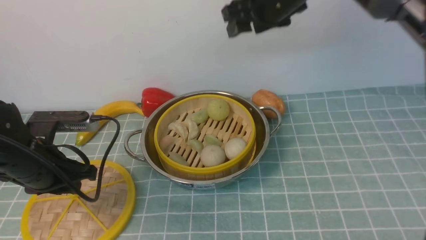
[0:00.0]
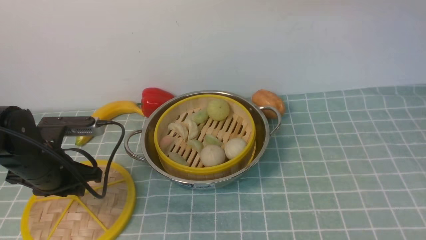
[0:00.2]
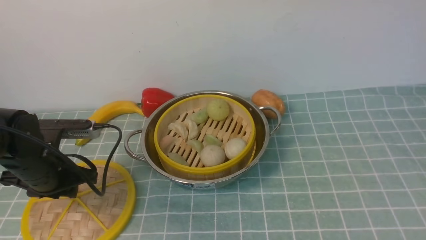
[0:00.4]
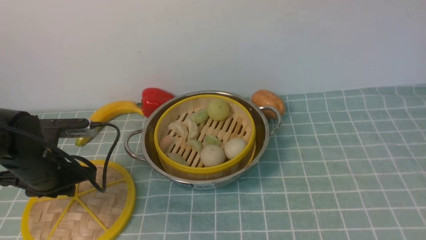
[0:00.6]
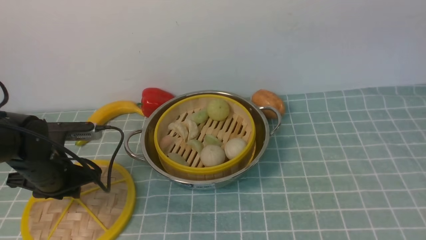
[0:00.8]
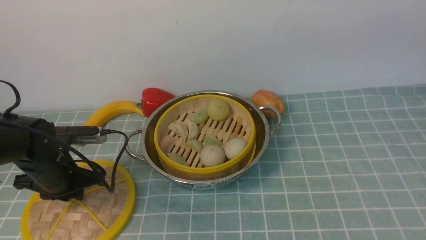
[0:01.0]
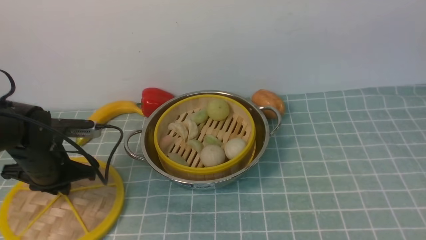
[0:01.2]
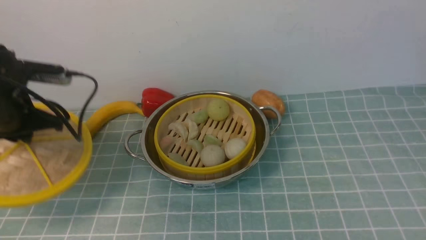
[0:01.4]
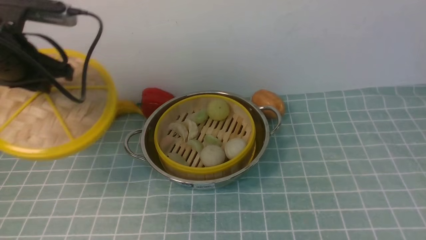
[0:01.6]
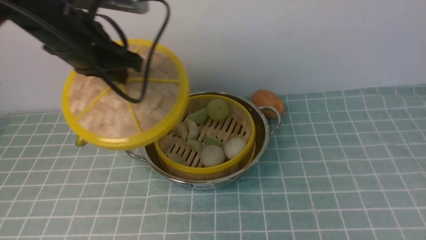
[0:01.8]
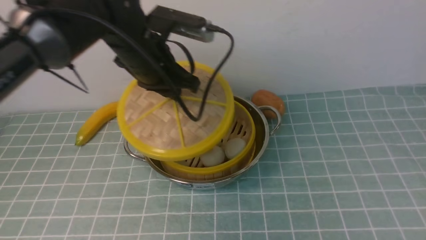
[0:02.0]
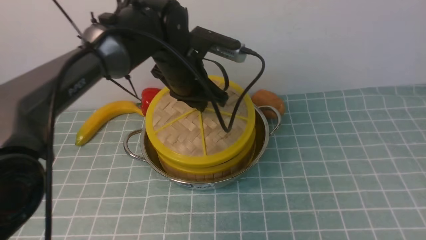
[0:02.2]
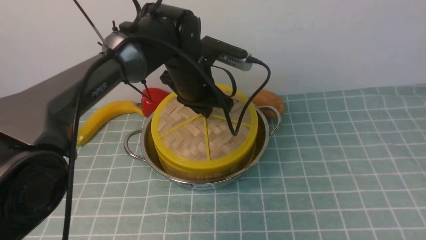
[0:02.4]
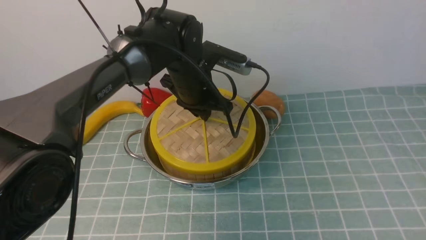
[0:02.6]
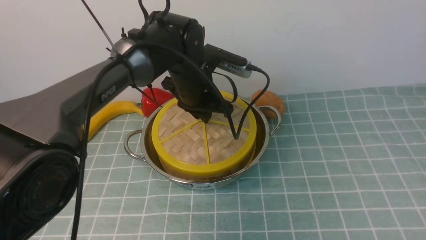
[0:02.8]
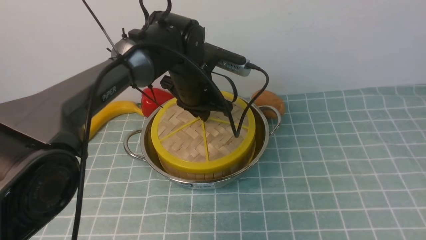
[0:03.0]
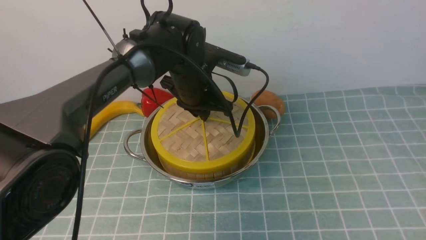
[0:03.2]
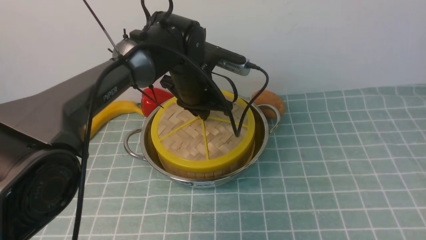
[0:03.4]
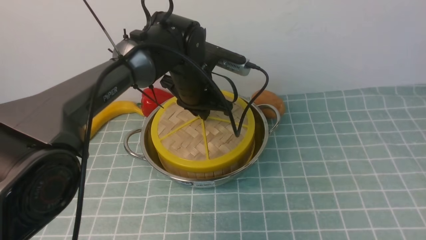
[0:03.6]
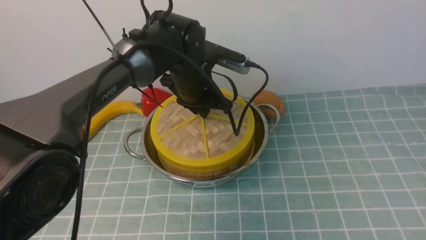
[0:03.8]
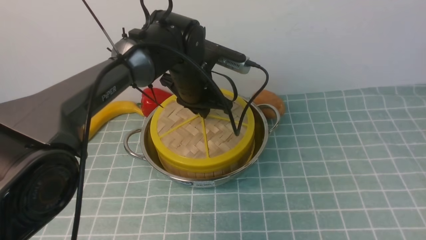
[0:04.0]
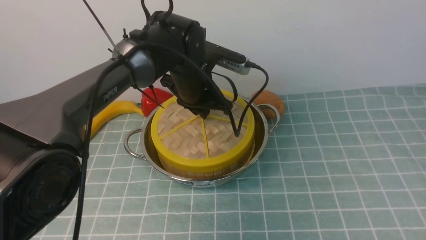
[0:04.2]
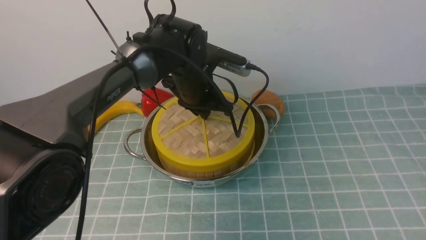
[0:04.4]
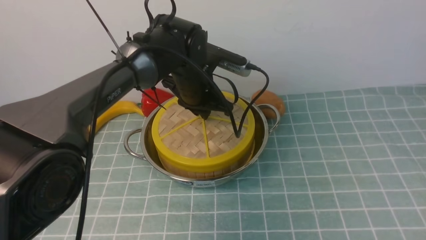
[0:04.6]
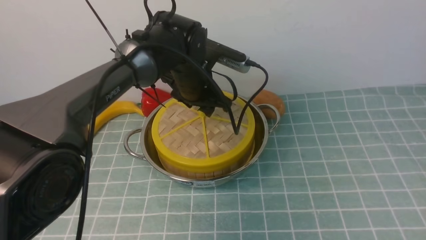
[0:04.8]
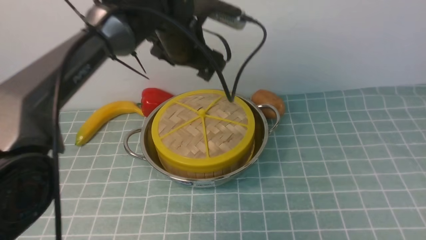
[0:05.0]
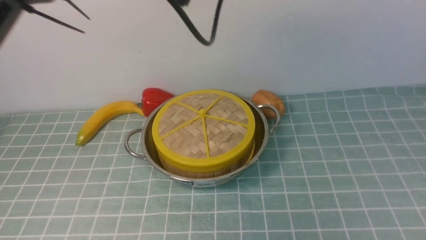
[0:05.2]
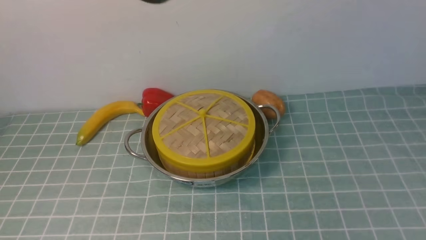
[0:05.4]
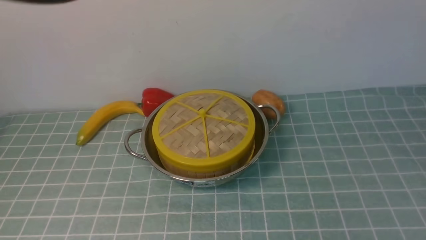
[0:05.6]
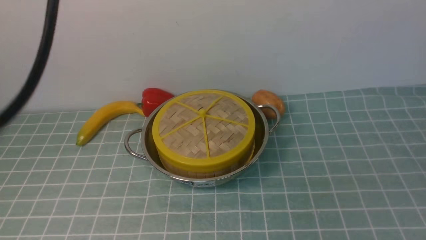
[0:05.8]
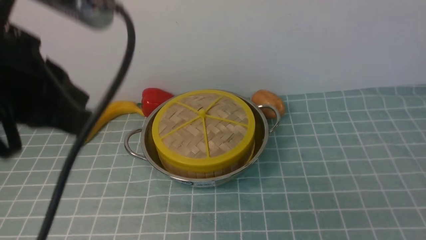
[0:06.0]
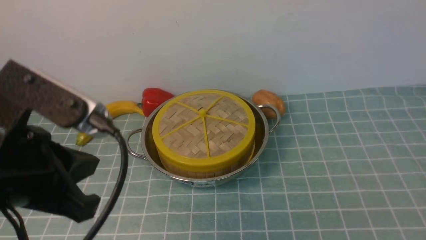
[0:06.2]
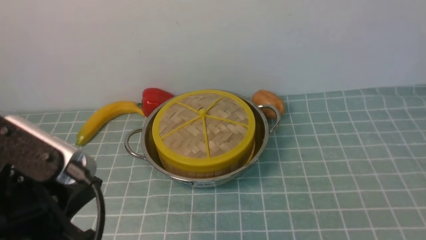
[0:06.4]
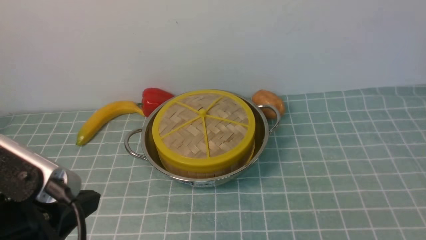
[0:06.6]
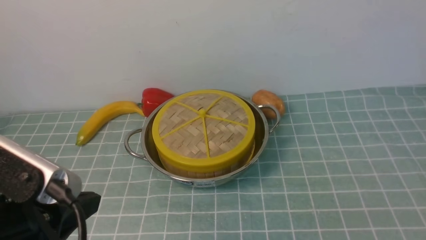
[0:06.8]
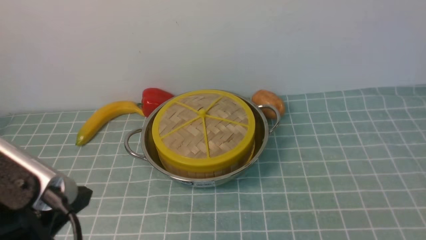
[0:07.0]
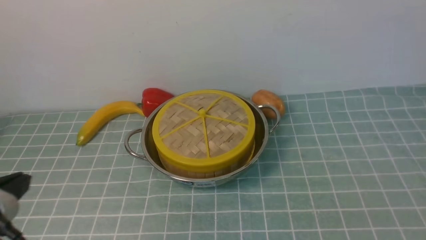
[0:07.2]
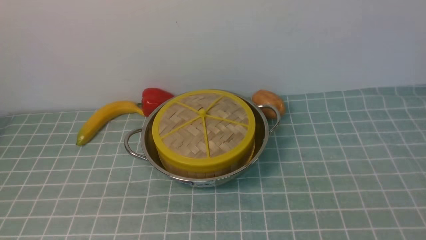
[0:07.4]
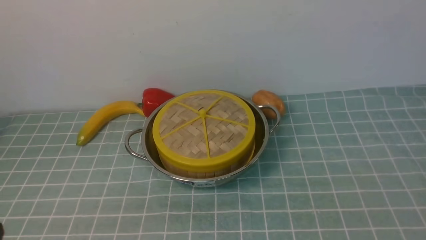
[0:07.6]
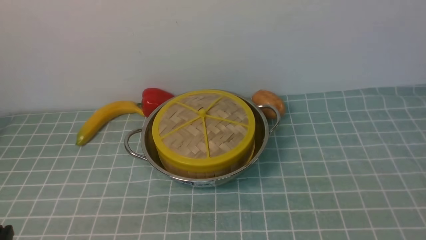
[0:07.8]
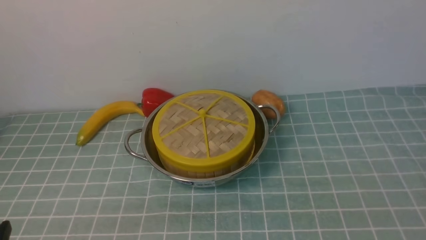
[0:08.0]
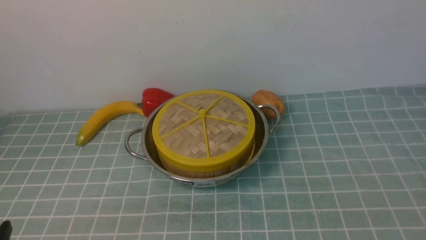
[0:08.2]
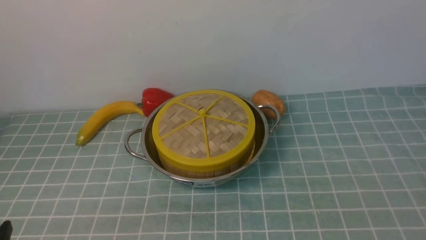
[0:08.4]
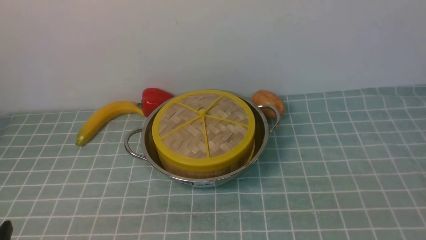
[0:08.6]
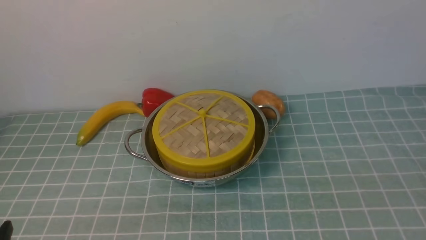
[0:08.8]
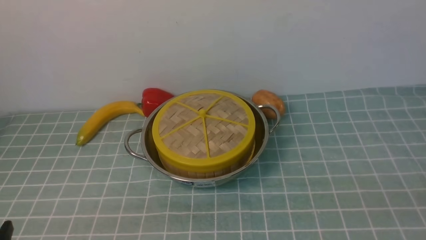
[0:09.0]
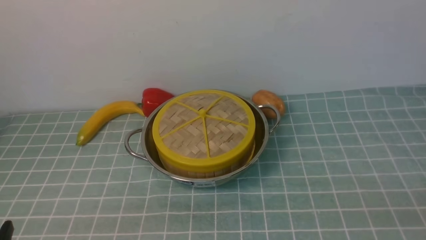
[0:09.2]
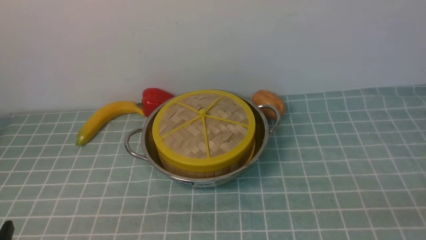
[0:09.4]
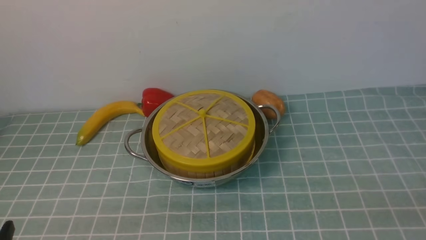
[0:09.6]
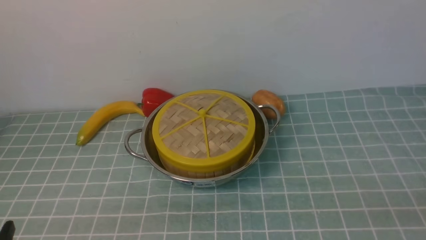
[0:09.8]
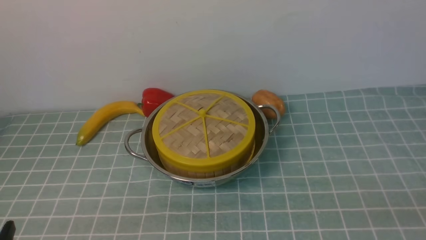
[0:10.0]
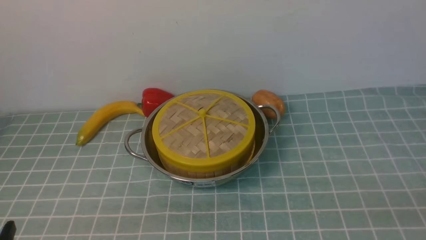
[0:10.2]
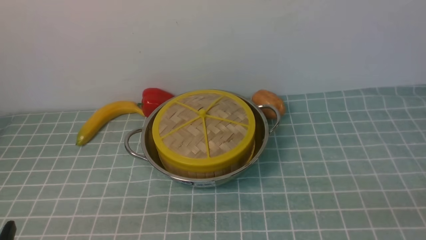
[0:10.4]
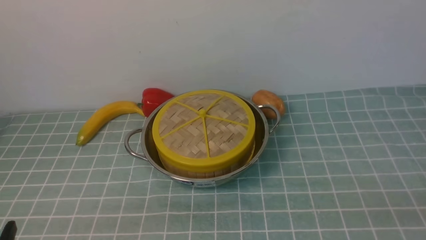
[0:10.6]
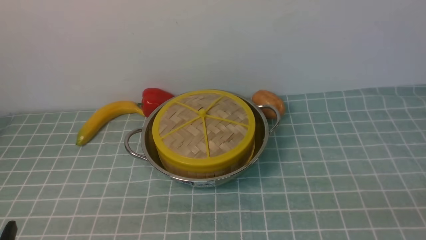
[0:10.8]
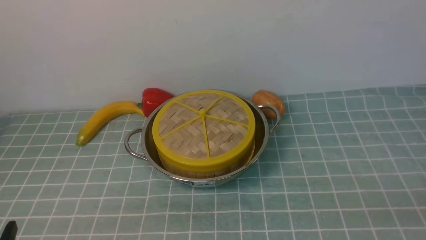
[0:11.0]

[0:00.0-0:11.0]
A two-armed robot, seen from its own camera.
Task of the whole recording: place the steamer in the pot on the blue tablecloth, and put the lid on the steamer.
Step, 0:00.4 to 0:01.4: use the left arm to lift the lid of the steamer.
Step, 0:01.6 to 0:05.2: use the left arm to place the steamer lid on the steamer.
0:00.0 to 0:01.6: The left gripper shifts approximately 15 cm upward and forward. Meanwhile the right gripper travels backward, to the right and upward by roughly 40 cm, and closes.
0:01.6 to 0:03.2: The left gripper is displaced to the right, downward and forward by some 25 cm.
0:03.2 to 0:04.8: The left gripper opens its fingers.
0:04.8 to 0:06.2: The left gripper shifts about 30 cm backward and to the left, and closes its fingers; the right gripper shifts roughly 25 cm downward, and closes.
0:06.2 to 0:07.8: The left gripper moves downward, backward and to the left, some 20 cm.
0:09.4 to 0:11.0: The two grippers keep their place.
